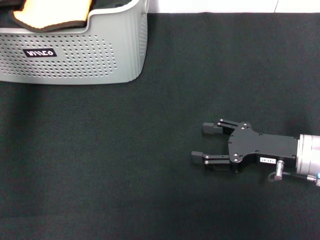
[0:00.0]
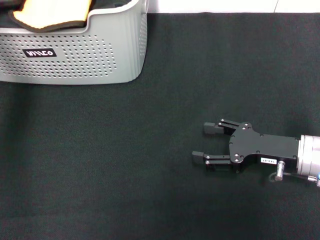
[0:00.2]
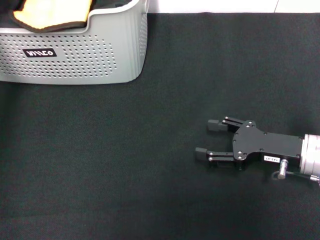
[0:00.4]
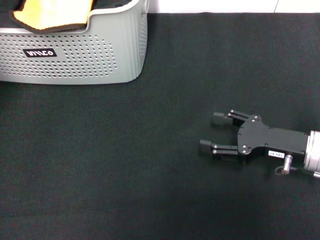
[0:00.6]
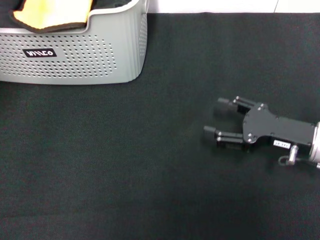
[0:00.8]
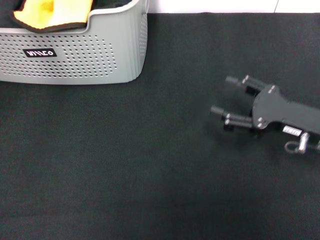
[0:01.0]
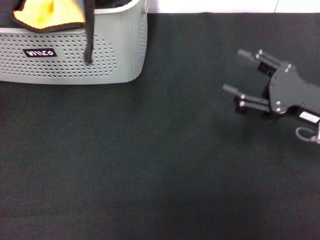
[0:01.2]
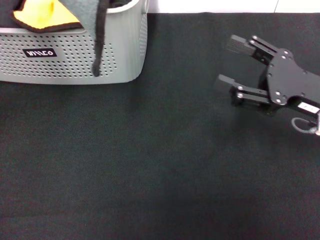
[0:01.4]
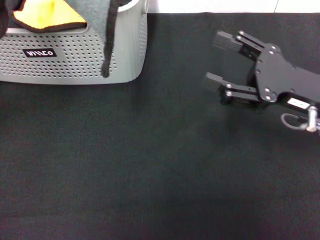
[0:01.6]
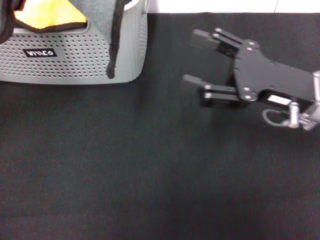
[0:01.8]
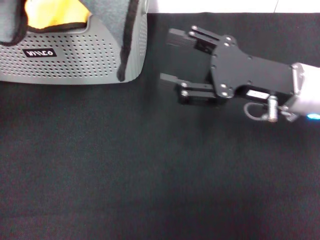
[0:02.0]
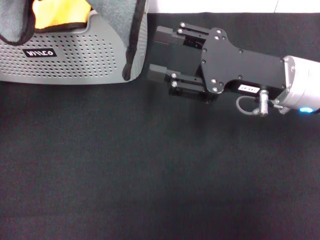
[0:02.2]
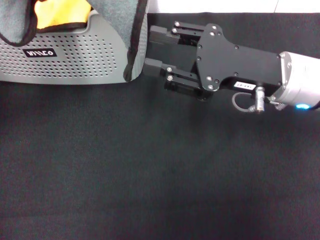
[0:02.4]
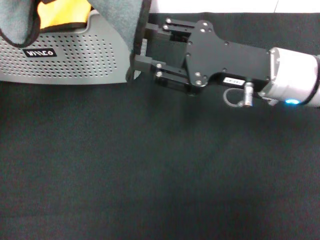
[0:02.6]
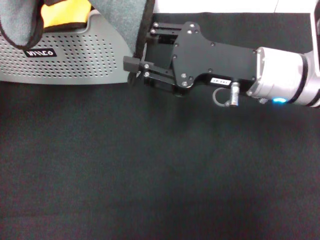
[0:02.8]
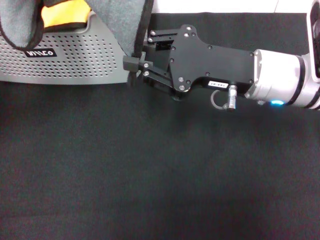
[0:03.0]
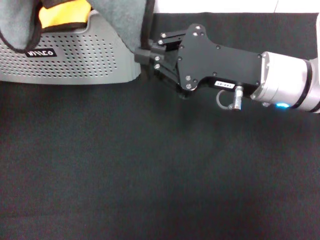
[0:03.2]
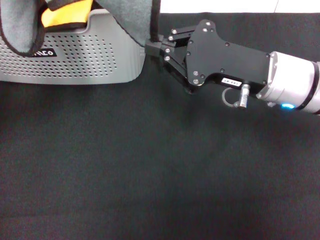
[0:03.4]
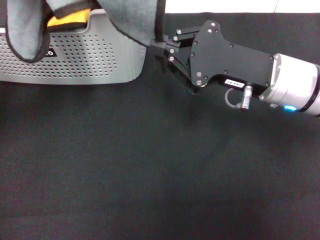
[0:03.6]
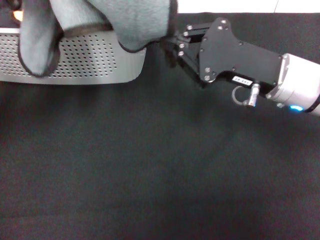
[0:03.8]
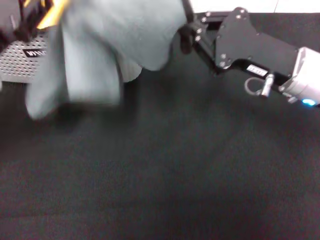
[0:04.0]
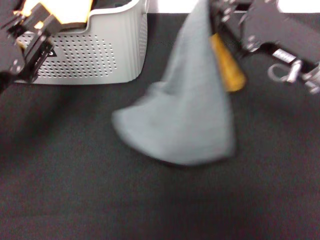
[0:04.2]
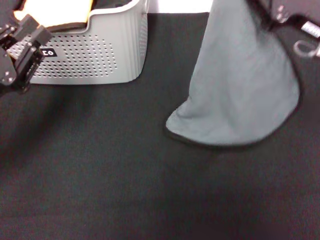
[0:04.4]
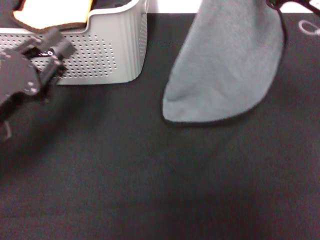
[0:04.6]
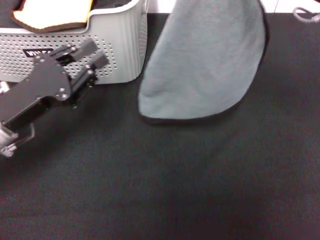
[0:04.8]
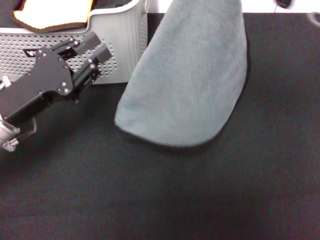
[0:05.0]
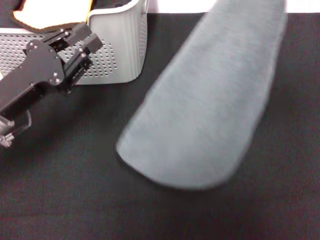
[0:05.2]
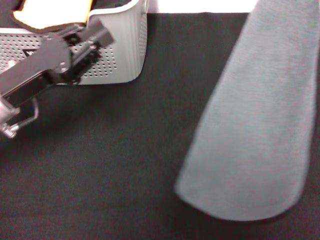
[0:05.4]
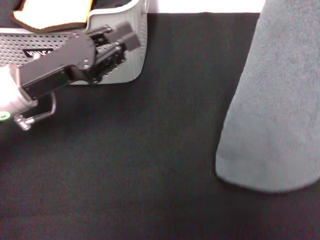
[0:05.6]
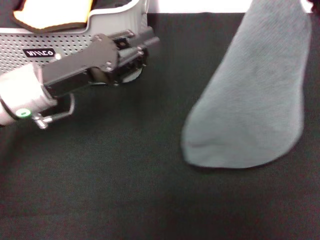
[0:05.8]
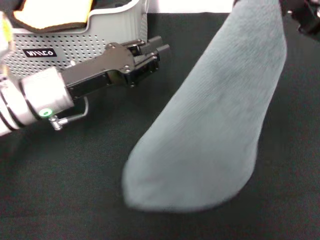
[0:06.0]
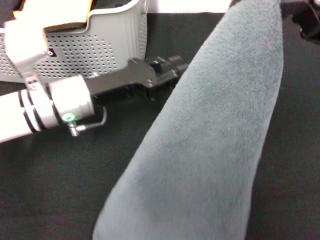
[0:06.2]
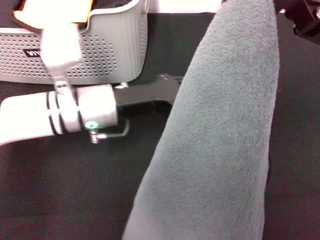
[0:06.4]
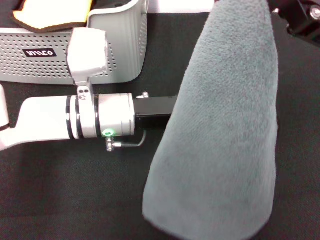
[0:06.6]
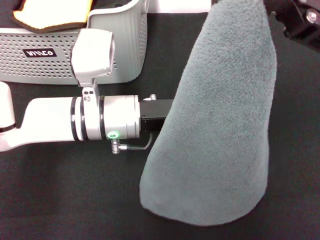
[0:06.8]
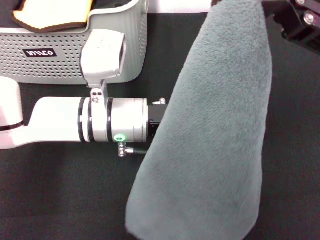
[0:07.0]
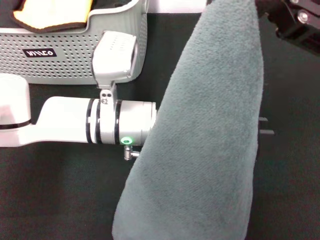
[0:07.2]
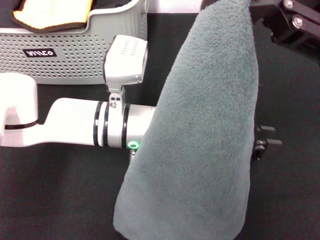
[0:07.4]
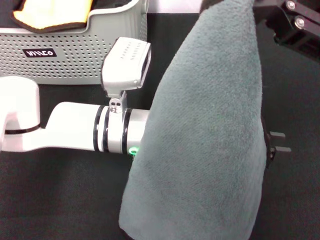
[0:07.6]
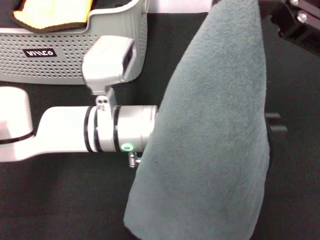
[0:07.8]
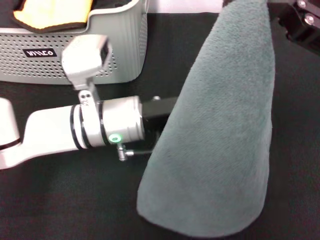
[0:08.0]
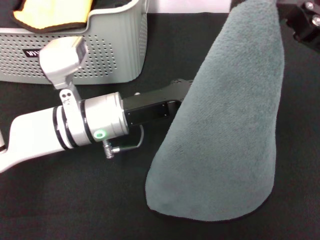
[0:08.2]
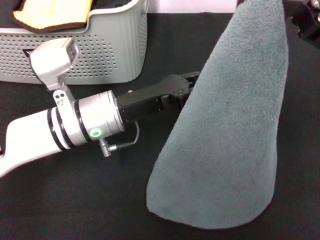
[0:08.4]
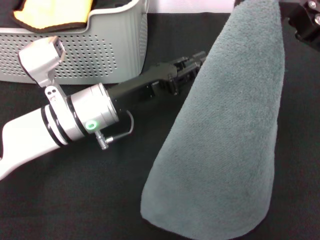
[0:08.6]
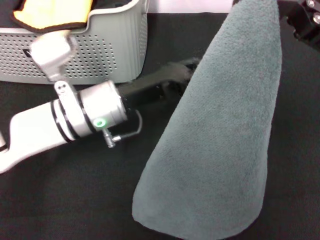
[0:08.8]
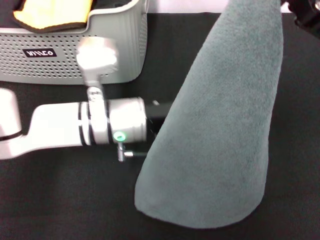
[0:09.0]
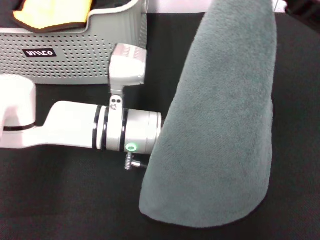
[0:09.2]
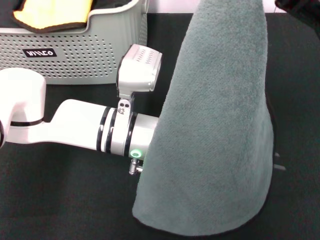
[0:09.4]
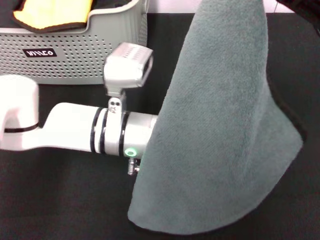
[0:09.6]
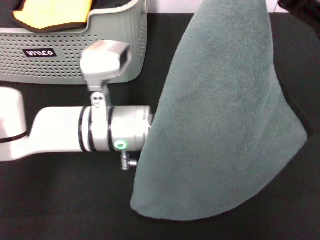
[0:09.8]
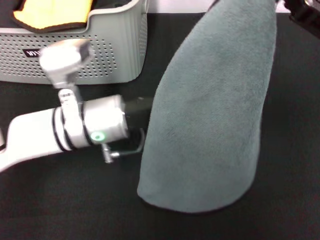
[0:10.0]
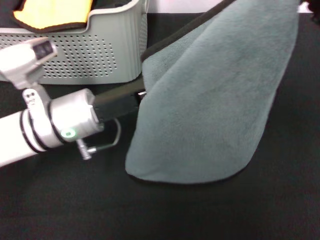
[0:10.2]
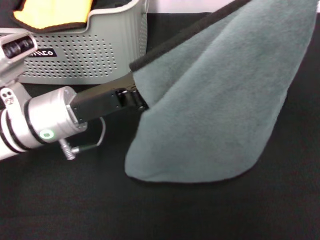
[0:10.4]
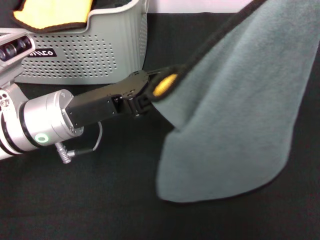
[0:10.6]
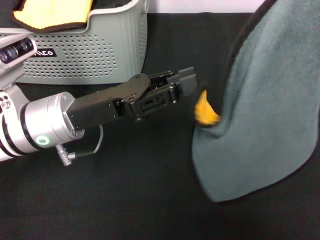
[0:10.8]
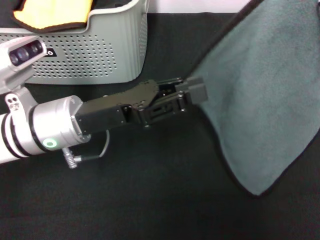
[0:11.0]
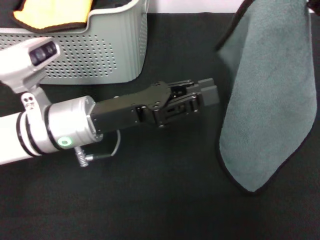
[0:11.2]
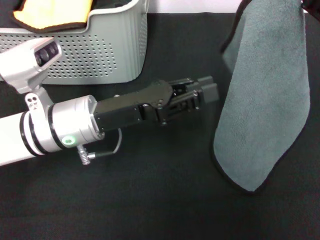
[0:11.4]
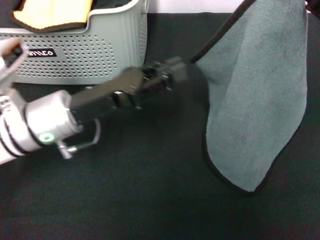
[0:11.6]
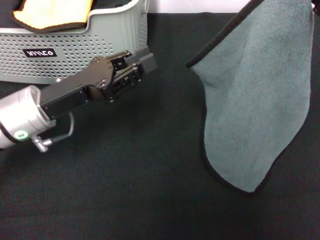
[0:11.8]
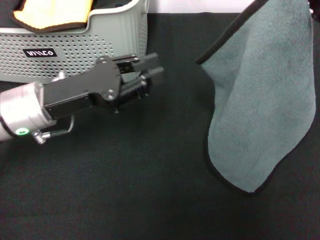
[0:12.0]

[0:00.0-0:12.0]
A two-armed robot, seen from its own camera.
Task of the whole recording: pick up the towel from the storage box and lay it flat on the black tablecloth.
Step, 0:00.0 to 0:03.2: Spread the towel flat with the left gripper.
0:00.0 to 0:01.6: The left gripper travels backward by about 15 cm. The right gripper shifts about 10 cm upward.
0:01.6 to 0:03.0: The right gripper travels to the left by about 10 cm, and closes its fingers.
0:03.0 to 0:04.4: The left gripper travels downward and backward by approximately 10 cm; the right gripper heads to the right, covering some 10 cm, and closes its fingers.
0:04.4 to 0:06.0: The right gripper heads upward, covering some 10 cm. Meanwhile the left gripper heads to the right and forward, covering approximately 15 cm.
0:06.0 to 0:07.6: The left gripper shifts approximately 10 cm to the right.
0:09.0 to 0:10.4: The left gripper shifts approximately 10 cm to the left, while the right gripper travels to the right by roughly 5 cm.

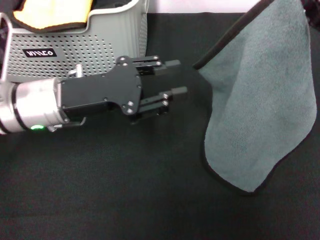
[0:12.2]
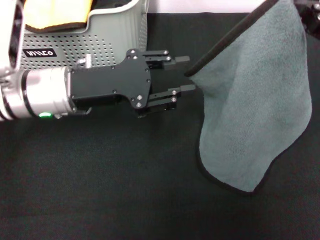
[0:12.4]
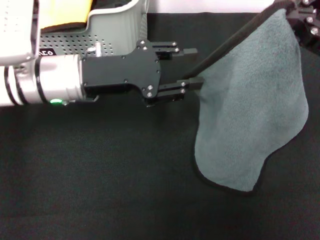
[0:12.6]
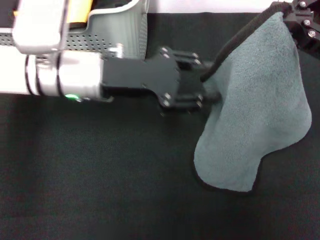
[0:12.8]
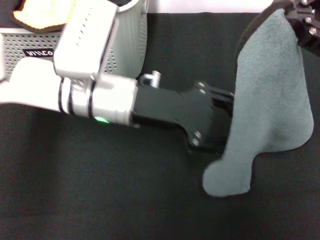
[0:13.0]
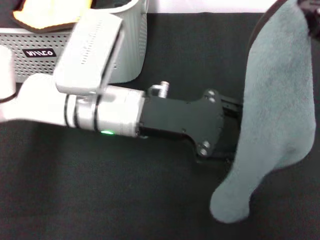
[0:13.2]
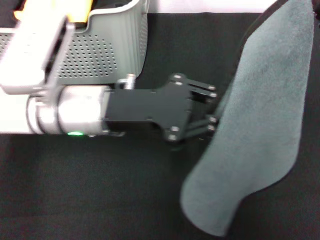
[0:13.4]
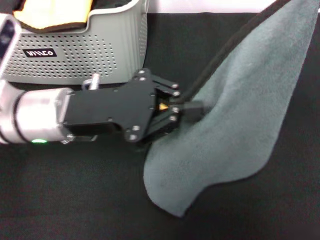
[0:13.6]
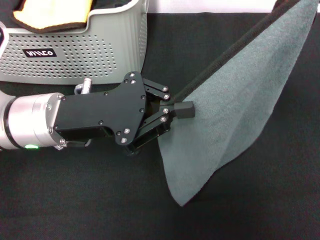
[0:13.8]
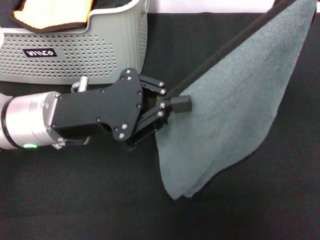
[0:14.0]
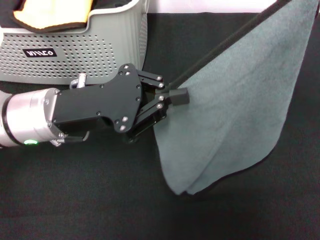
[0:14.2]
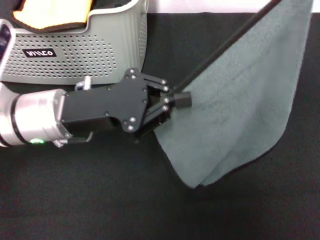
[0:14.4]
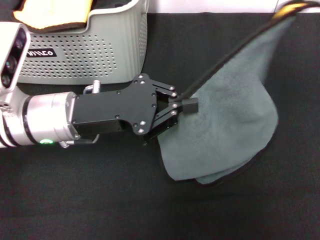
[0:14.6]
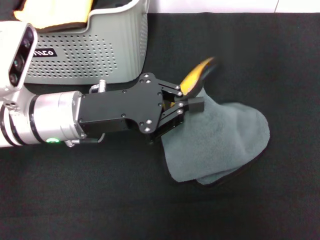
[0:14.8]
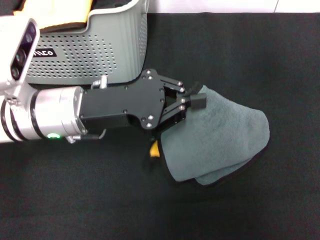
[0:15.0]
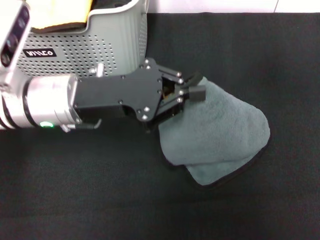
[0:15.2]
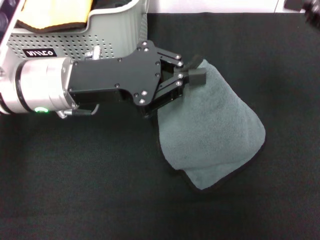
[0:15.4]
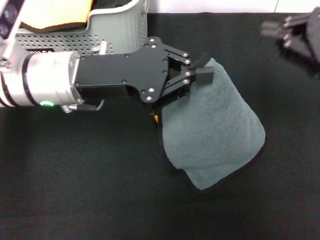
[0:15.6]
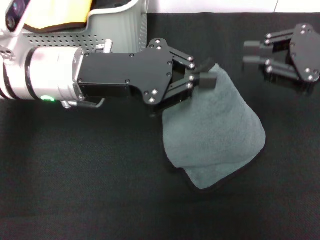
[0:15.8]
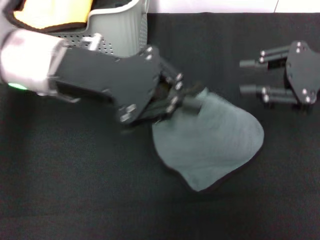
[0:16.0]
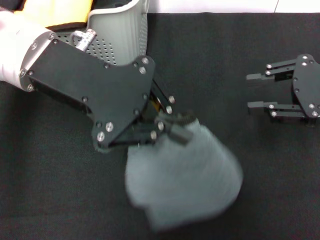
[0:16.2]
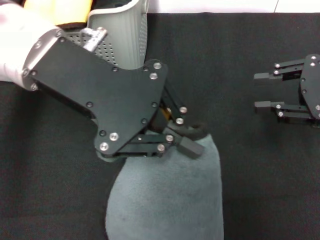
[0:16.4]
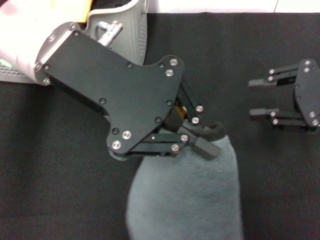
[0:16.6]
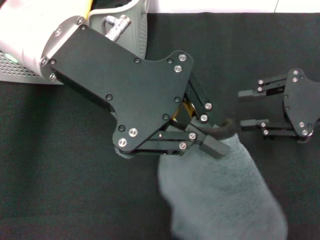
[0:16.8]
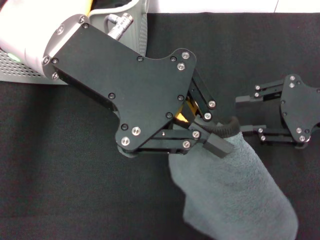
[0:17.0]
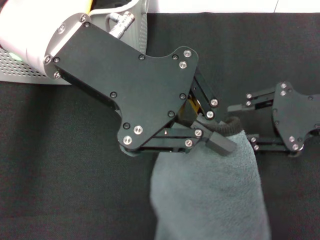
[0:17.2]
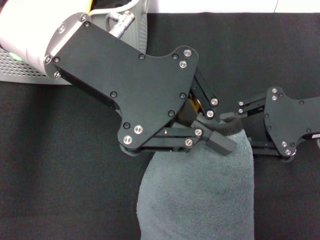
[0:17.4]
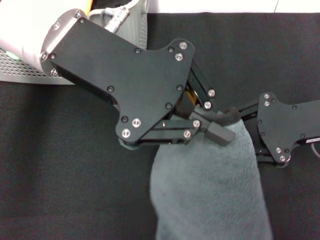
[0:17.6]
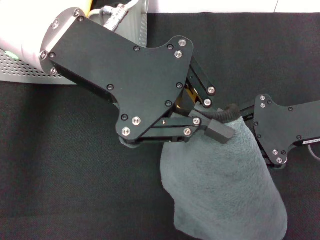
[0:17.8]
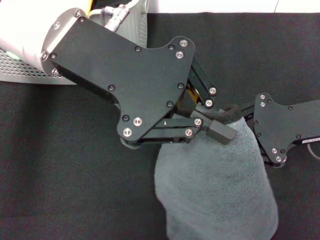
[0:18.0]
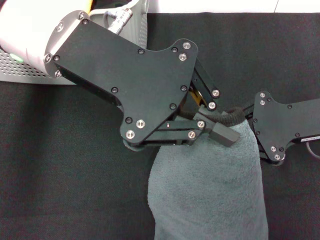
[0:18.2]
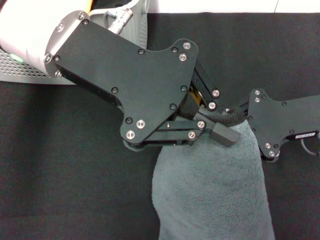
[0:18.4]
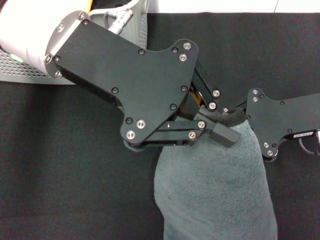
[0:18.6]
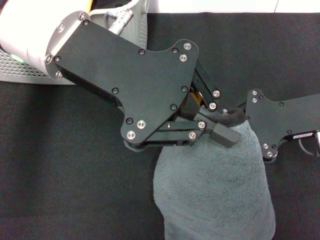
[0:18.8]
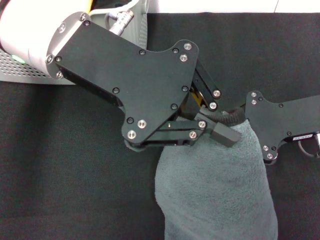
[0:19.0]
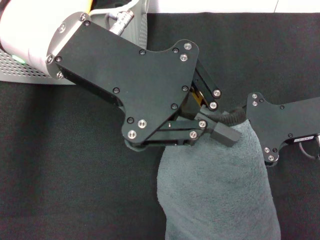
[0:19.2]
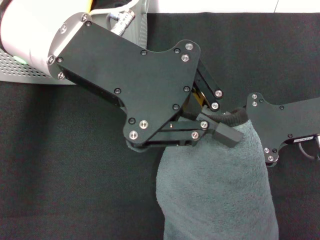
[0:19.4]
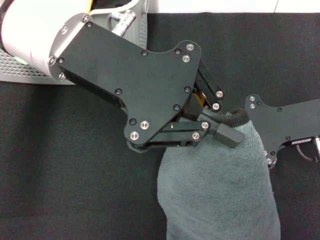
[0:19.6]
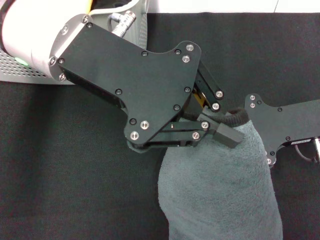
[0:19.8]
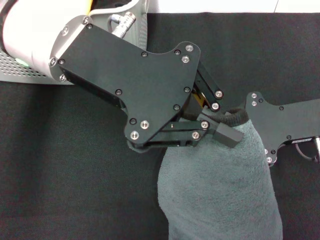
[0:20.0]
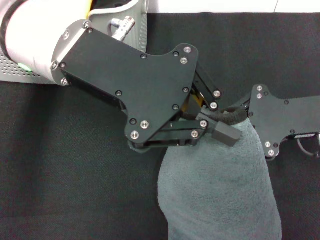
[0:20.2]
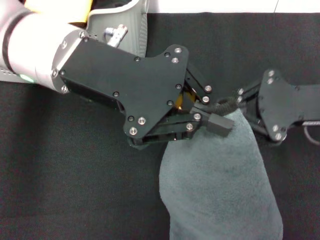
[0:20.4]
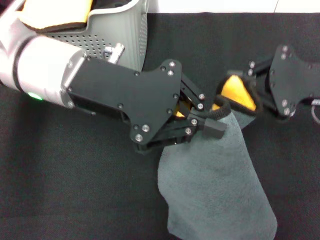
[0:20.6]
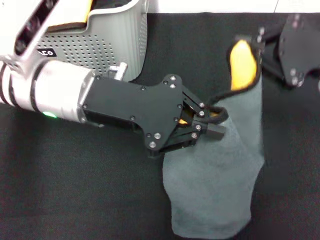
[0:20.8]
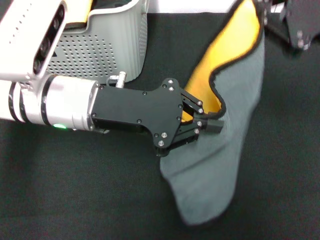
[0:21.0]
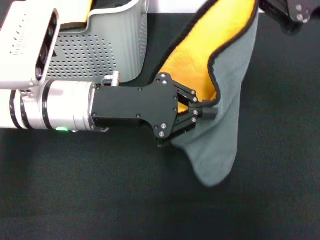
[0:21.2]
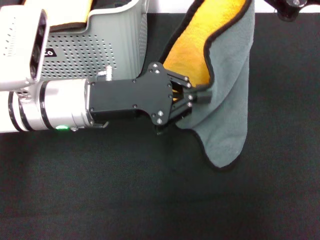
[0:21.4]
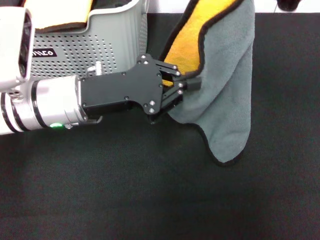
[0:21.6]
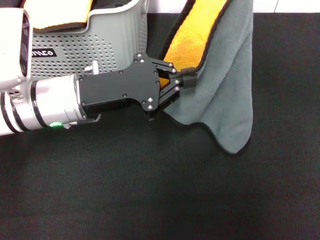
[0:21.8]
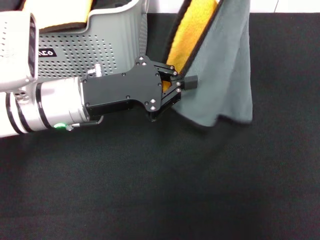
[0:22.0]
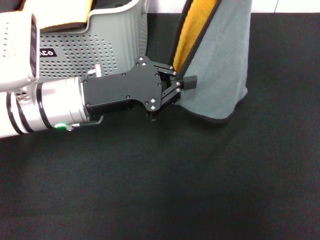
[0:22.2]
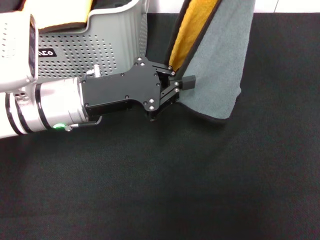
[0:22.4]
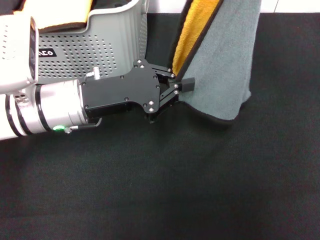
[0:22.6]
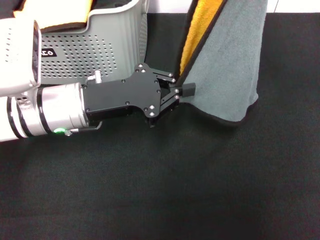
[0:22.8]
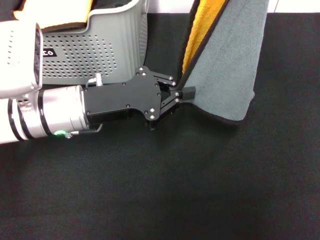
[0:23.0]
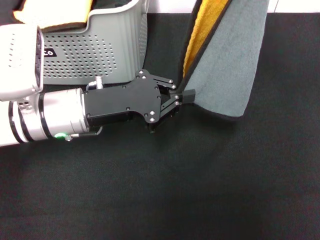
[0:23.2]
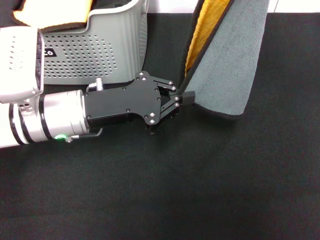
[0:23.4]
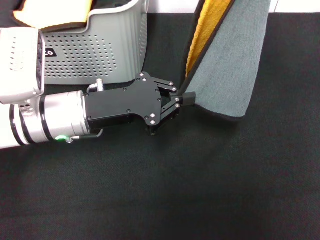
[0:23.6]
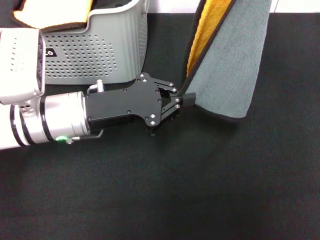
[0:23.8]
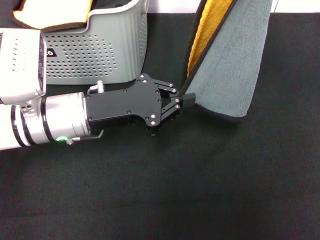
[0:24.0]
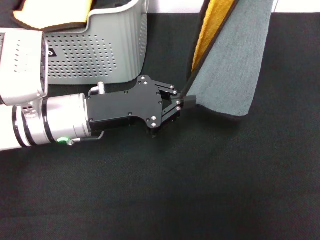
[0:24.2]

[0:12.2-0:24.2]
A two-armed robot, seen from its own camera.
Task of the whole recording: pick up the towel from the storage box and lay it flat on the black tablecloth.
0:12.2 to 0:13.8: The left gripper goes to the right and returns, roughly 10 cm each way, and closes up.
0:15.2 to 0:16.6: The left gripper shifts approximately 10 cm upward; the right gripper moves downward, some 5 cm, and opens.
0:16.6 to 0:18.2: The right gripper changes place by some 5 cm.
0:18.2 to 0:19.8: Neither gripper changes place.
0:19.8 to 0:21.2: The left gripper is displaced downward by about 15 cm. The right gripper is displaced upward by about 10 cm.
0:22.6 to 0:24.2: The grippers move only a little.
